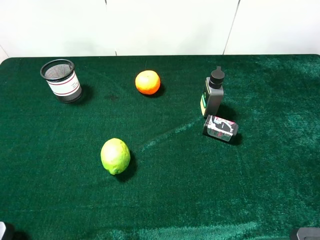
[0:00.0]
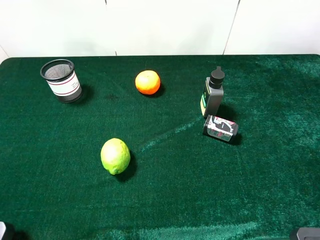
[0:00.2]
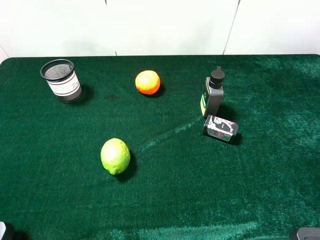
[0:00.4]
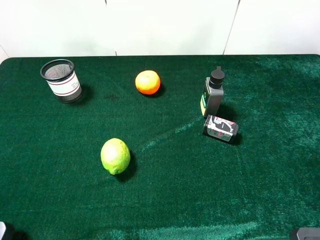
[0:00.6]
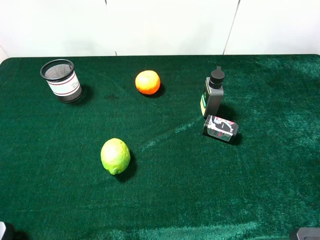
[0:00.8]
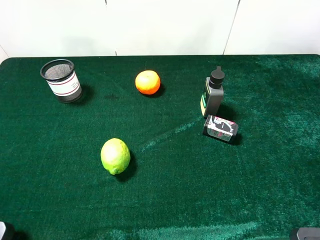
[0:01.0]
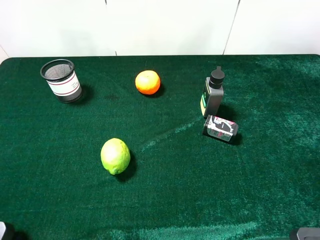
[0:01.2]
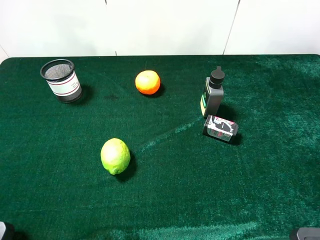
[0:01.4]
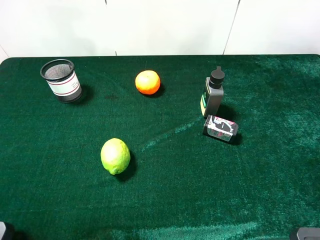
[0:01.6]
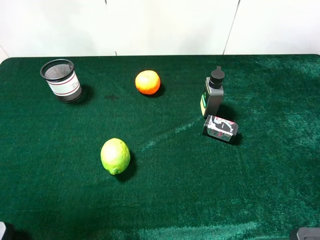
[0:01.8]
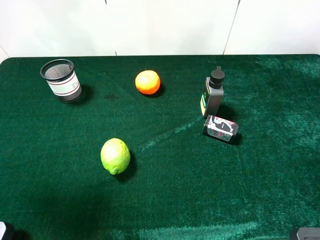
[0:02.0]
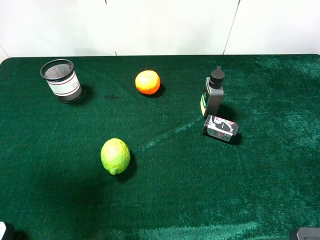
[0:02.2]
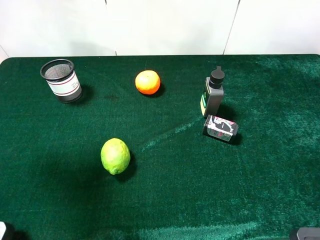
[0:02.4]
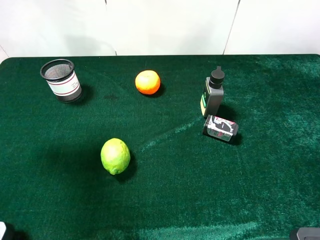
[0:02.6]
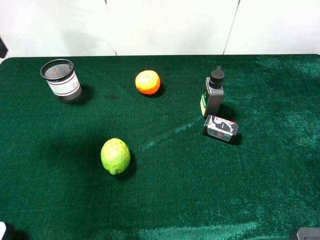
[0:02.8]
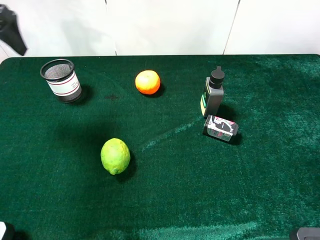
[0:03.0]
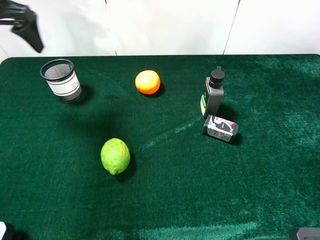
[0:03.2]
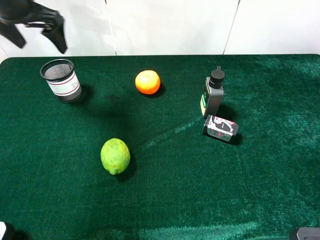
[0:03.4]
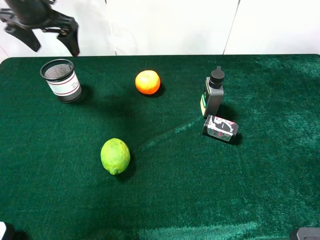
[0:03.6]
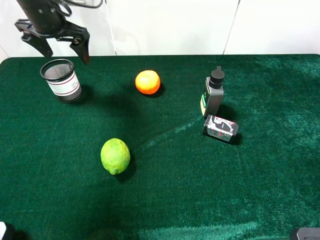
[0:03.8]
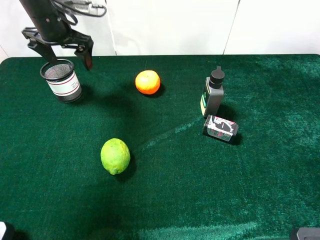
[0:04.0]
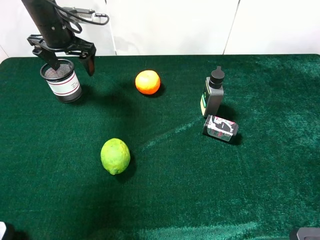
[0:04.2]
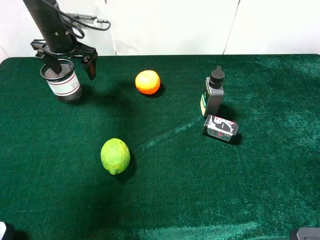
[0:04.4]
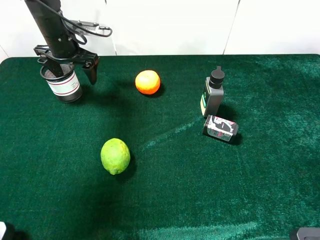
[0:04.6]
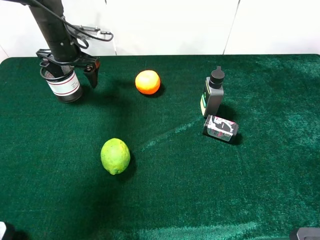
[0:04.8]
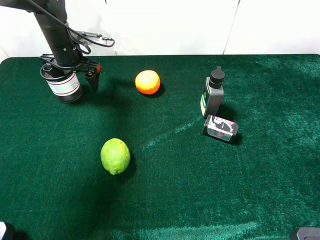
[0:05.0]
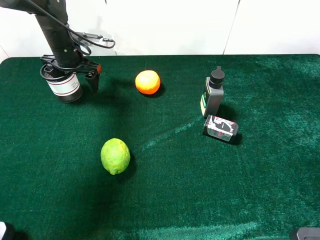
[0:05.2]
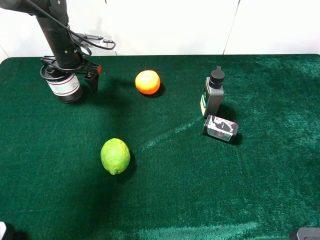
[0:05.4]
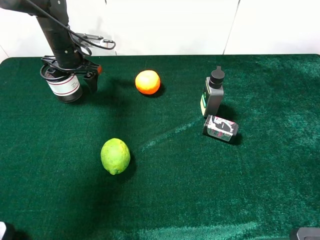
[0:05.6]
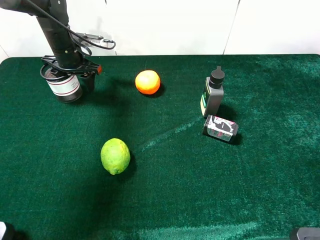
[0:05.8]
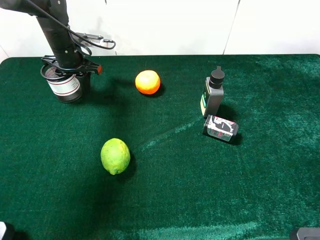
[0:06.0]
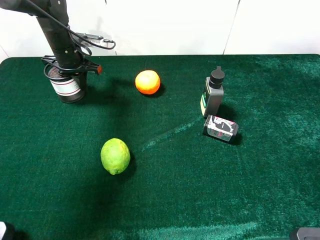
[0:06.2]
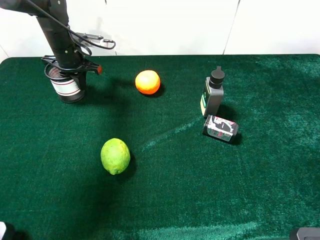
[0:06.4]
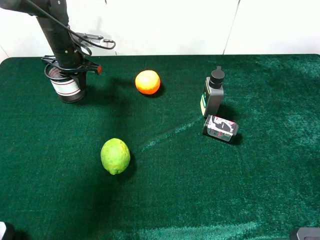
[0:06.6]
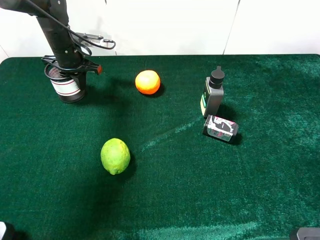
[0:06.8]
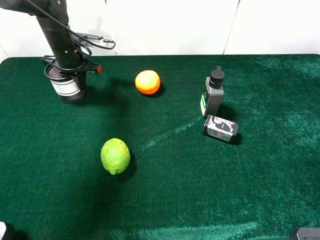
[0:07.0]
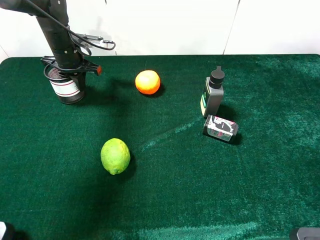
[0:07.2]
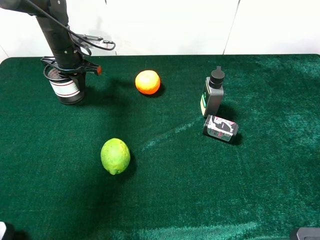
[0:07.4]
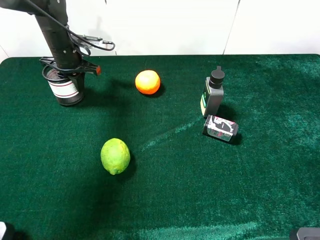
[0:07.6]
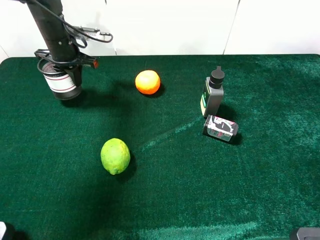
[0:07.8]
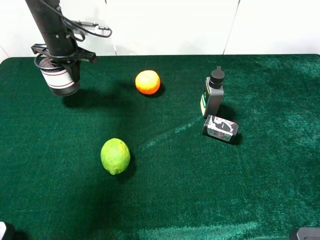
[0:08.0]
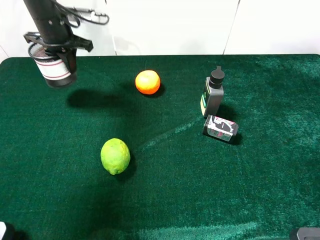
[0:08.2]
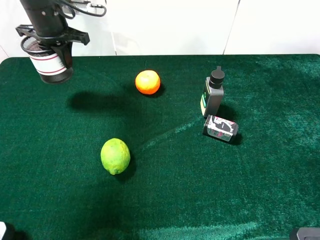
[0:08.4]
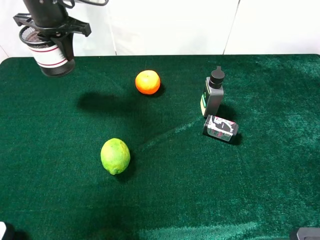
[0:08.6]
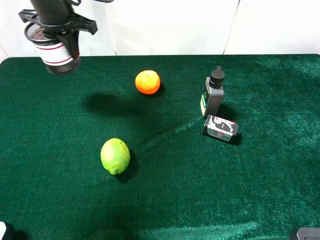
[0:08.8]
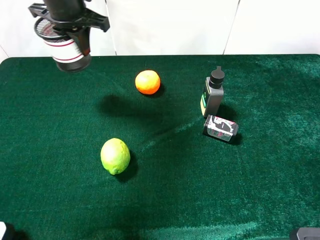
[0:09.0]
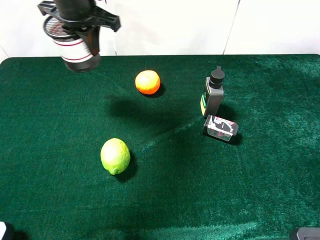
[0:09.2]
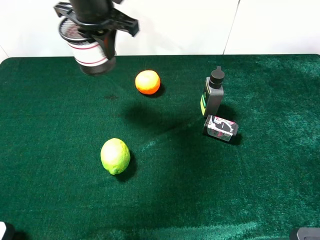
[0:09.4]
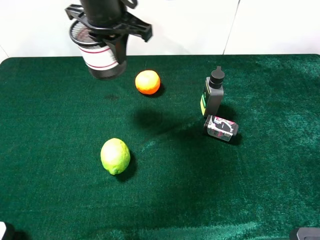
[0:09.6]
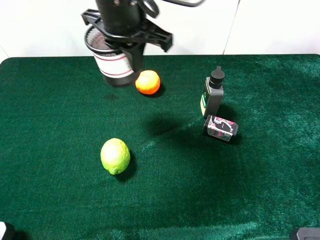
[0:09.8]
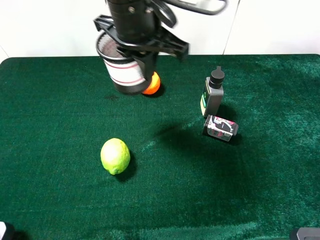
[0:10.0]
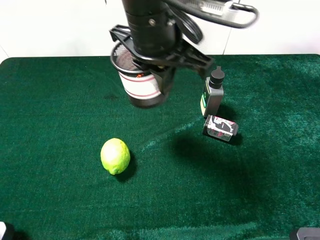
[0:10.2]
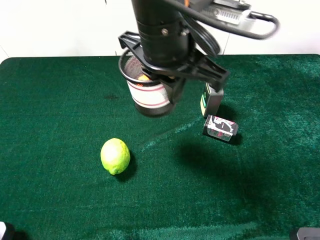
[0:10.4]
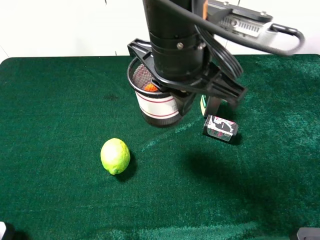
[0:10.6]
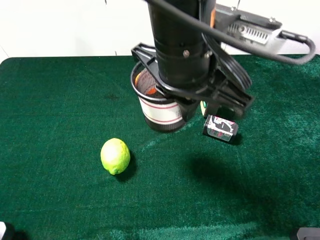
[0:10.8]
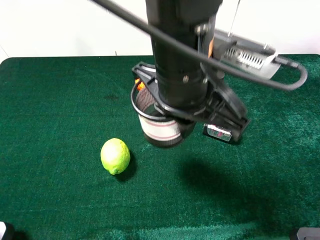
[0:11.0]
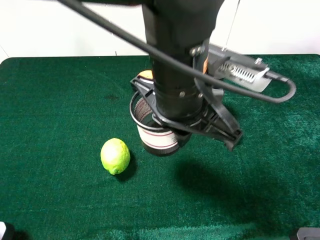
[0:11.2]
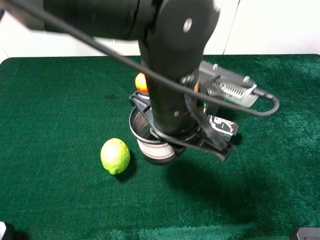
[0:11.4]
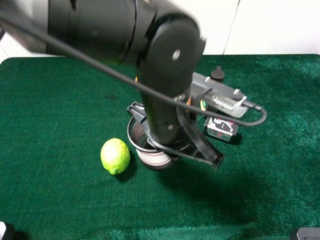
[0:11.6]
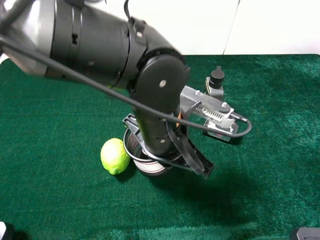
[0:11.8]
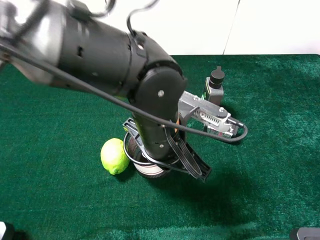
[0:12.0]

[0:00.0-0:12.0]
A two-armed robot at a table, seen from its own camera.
Task of the whole recording: the gripper move the object.
Step, 0:00.0 to 0:07.2: Grasp the pen container with the left gripper.
0:01.6 to 0:03.0: The left gripper heads forward, covering roughly 25 cm.
0:03.0 to 0:04.4: The left gripper is displaced downward, forward and to the right by roughly 20 cm.
0:04.4 to 0:06.0: The left gripper closes.
0:06.0 to 0:07.6: The two grippers keep their place.
0:07.6 to 0:09.0: The left gripper heads upward and to the right, covering some 15 cm.
0:09.0 to 0:10.4: The left gripper travels to the right and backward by roughly 25 cm.
0:10.4 to 0:12.0: The left gripper goes about 15 cm downward and backward.

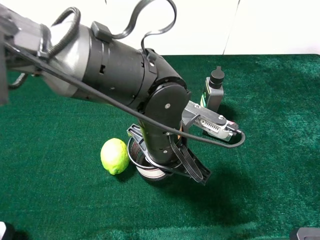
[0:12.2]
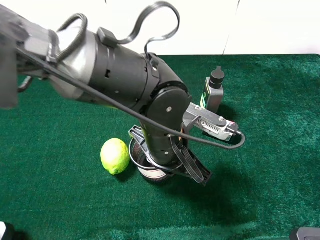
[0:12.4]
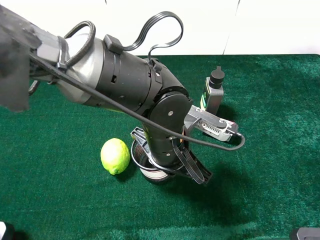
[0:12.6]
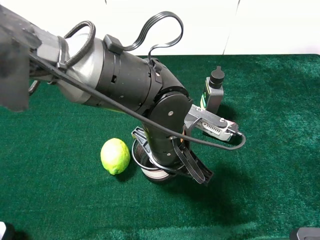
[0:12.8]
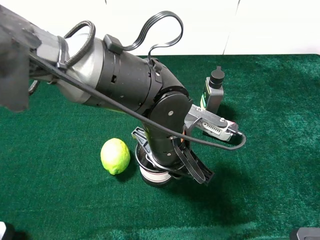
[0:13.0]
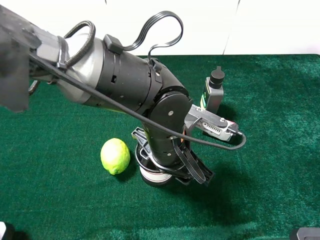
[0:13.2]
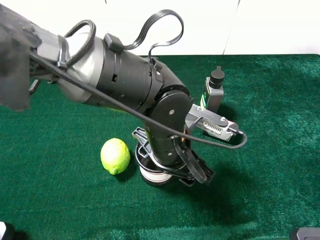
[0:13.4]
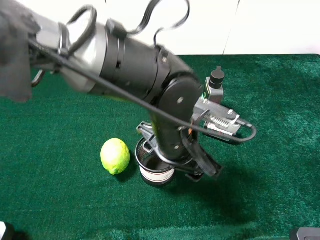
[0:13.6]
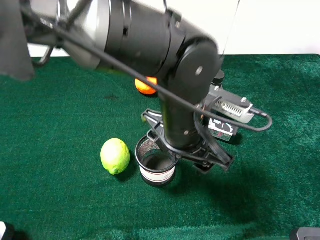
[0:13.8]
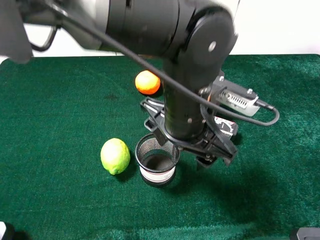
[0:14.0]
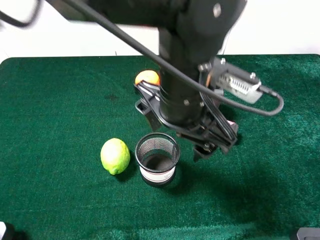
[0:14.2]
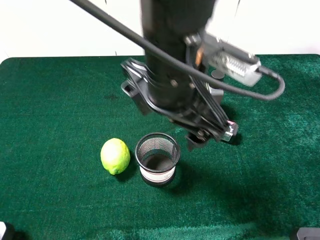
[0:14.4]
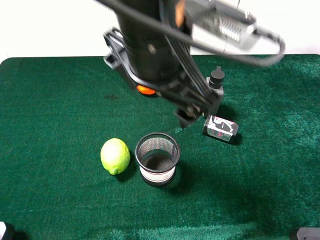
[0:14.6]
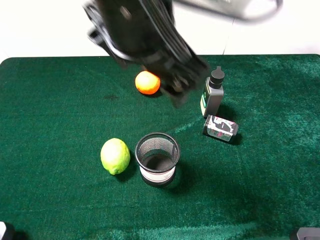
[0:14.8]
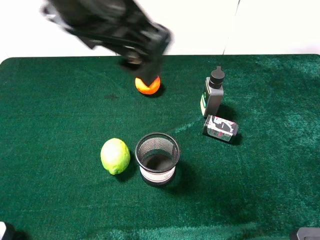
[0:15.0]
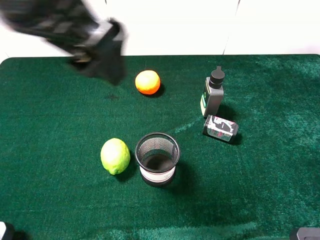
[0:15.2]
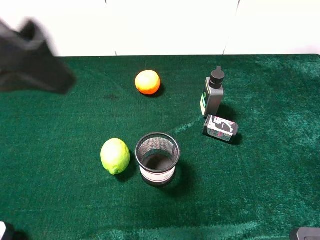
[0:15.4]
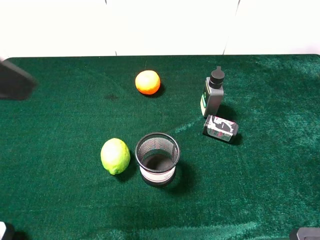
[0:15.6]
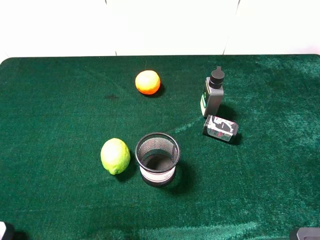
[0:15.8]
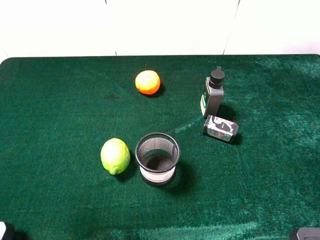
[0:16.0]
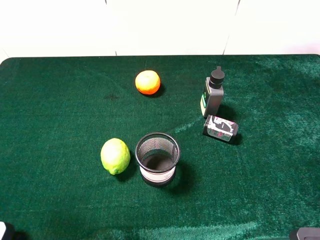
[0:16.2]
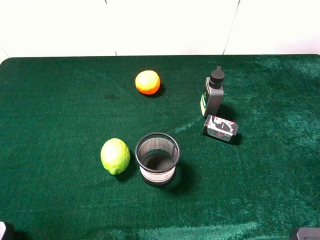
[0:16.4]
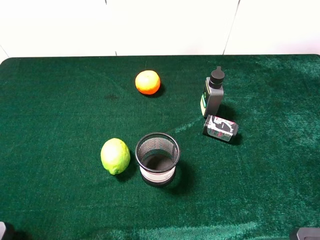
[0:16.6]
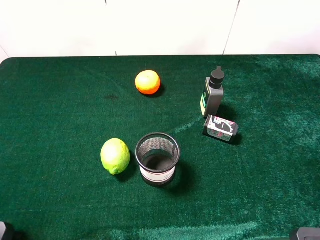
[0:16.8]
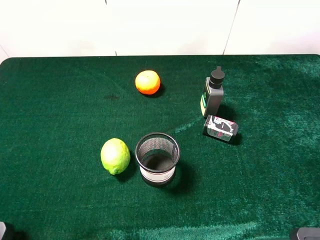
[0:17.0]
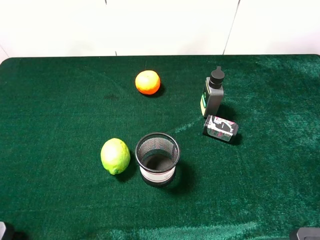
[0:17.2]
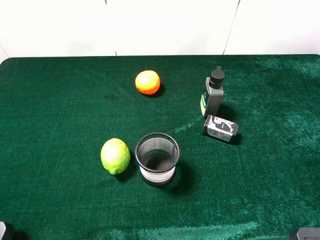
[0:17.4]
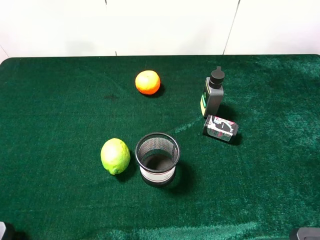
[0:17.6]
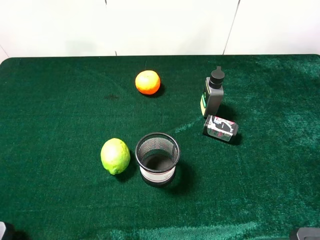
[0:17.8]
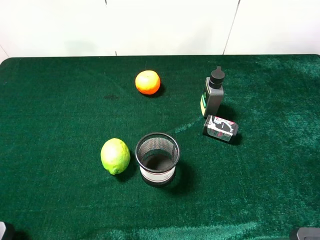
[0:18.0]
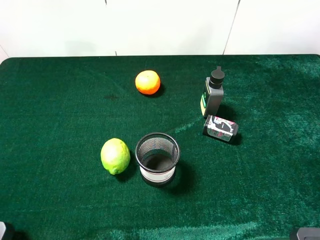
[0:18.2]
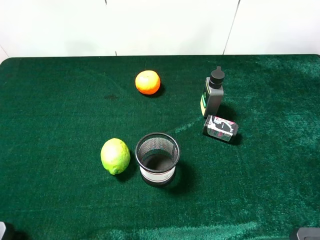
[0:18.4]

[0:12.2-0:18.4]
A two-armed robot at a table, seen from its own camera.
Task of the whole recording: the gripper move the object.
0:12.2 to 0:13.8: The left gripper opens.
0:13.8 to 0:15.4: The left gripper heads to the left and upward, covering some 30 cm.
0:15.4 to 0:16.8: The left gripper goes some 20 cm to the left, downward and backward.

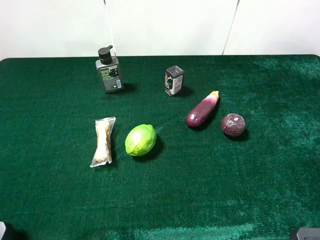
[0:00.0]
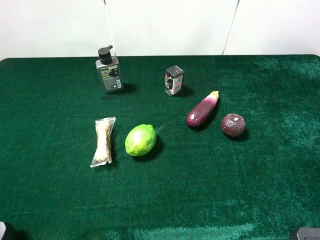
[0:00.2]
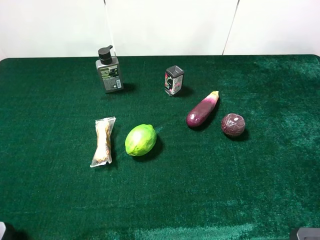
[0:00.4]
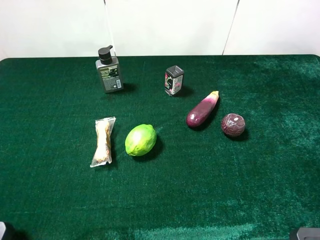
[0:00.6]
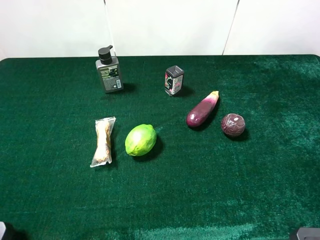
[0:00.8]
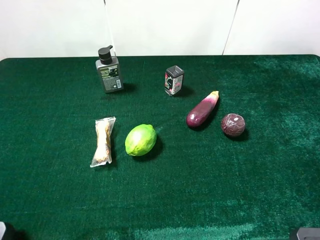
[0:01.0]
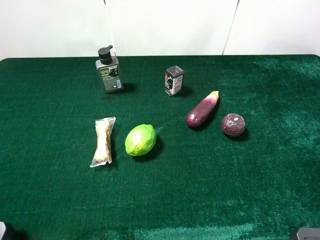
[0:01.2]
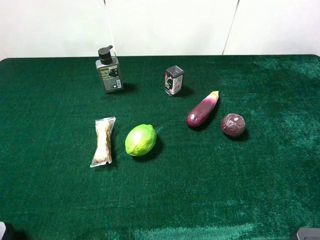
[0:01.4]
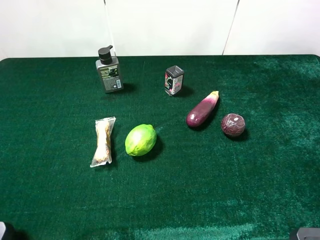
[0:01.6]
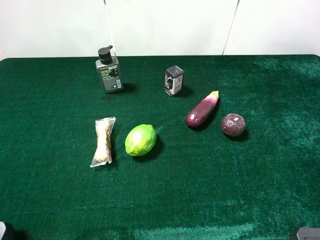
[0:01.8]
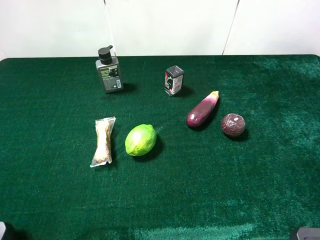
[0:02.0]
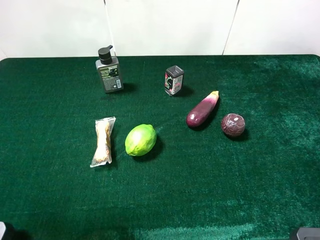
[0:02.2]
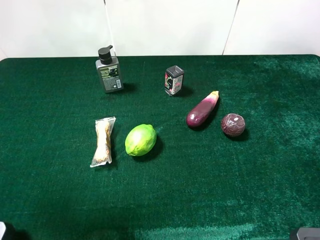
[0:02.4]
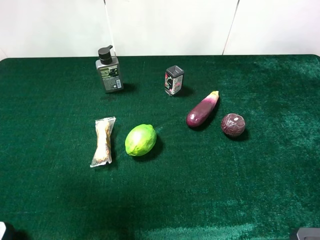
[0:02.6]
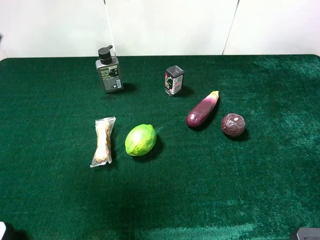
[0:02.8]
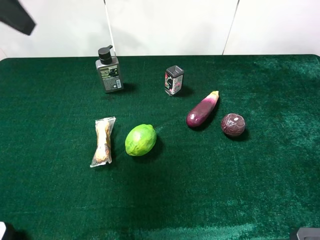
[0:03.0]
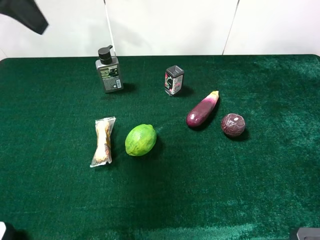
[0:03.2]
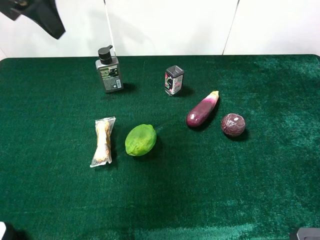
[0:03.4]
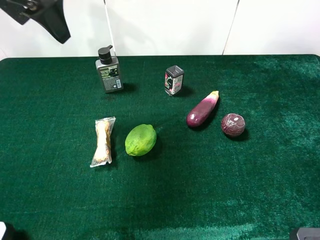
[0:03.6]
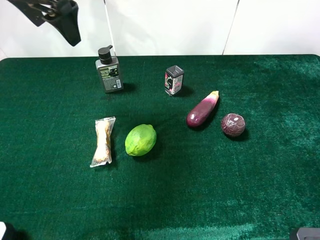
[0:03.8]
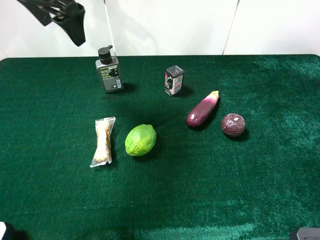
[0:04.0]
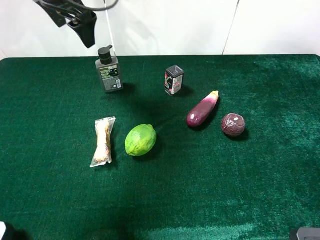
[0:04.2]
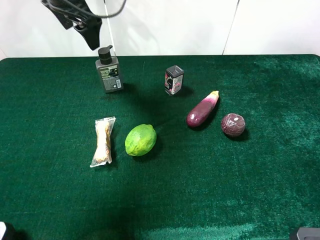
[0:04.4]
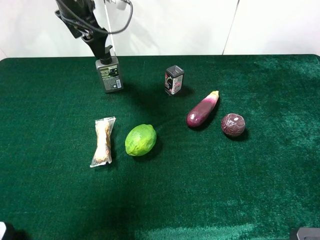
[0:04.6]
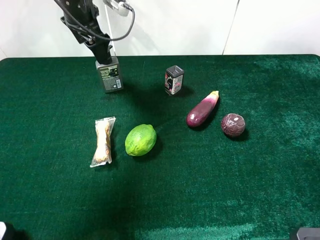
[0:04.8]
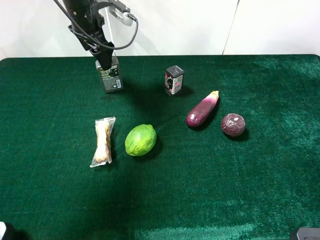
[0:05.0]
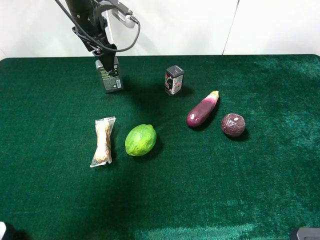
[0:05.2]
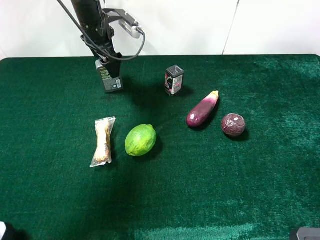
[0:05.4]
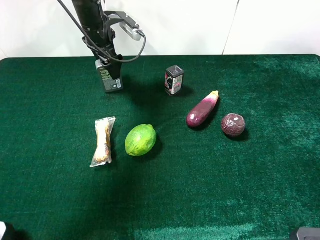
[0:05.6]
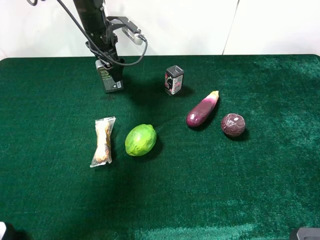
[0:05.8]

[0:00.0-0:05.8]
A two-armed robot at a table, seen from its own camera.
Task of the whole recording: the gripper move the object.
0:00.0 to 0:01.4: Neither gripper changes place.
0:01.4 to 0:02.8: The left gripper goes roughly 20 cm forward and upward.
0:02.8 to 0:04.4: The left gripper heads forward and downward, covering some 25 cm.
0:04.4 to 0:05.8: The left gripper is displaced downward by some 10 cm.
